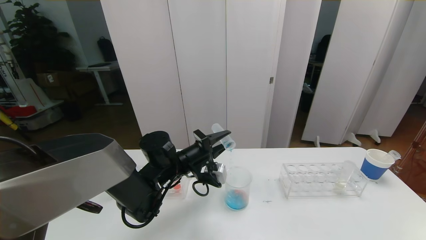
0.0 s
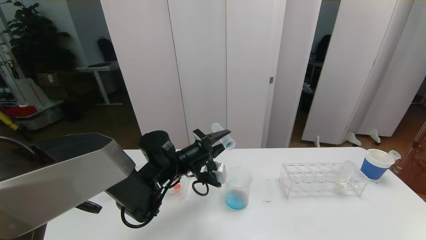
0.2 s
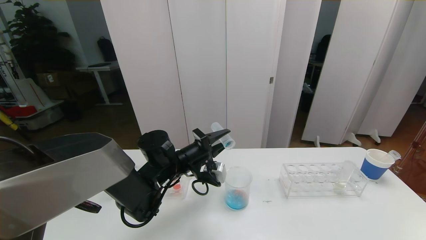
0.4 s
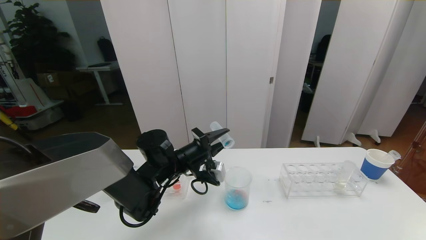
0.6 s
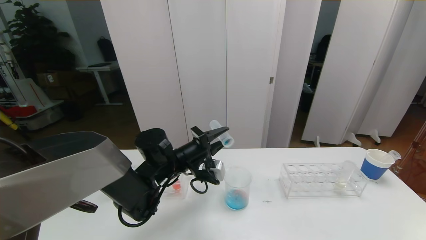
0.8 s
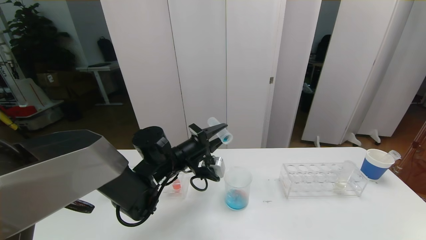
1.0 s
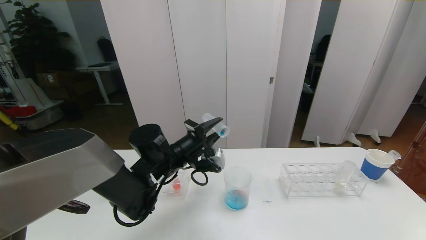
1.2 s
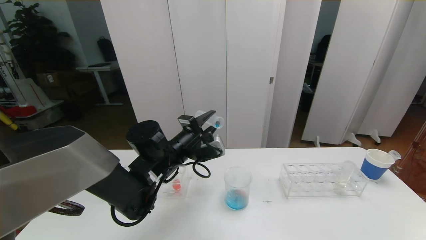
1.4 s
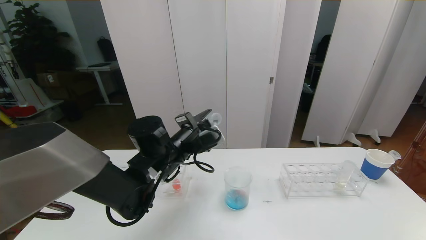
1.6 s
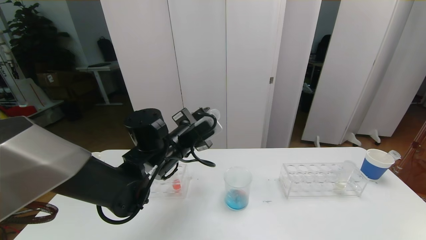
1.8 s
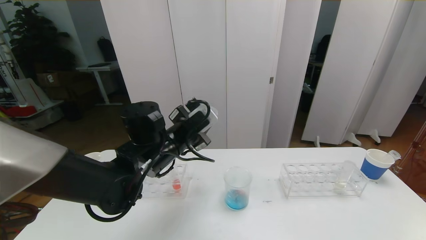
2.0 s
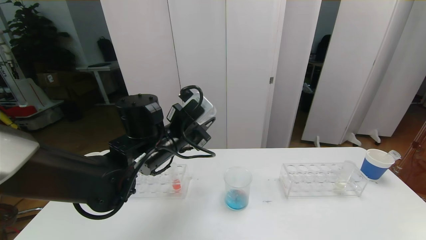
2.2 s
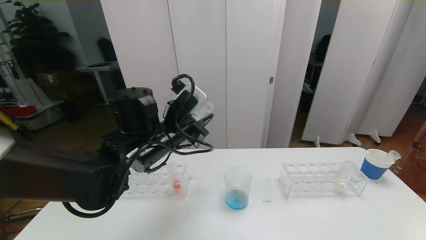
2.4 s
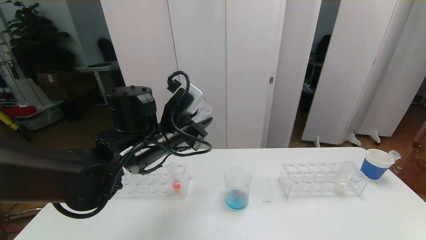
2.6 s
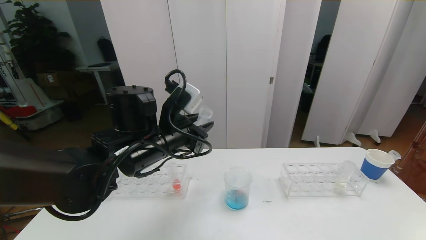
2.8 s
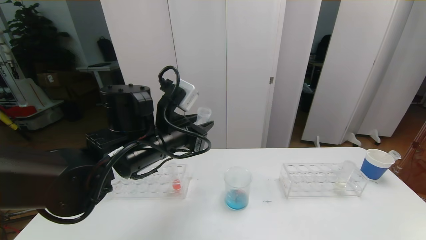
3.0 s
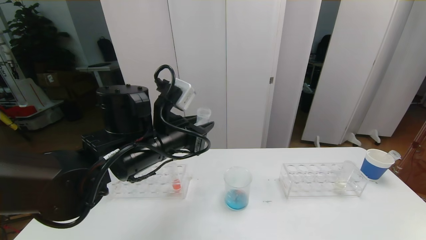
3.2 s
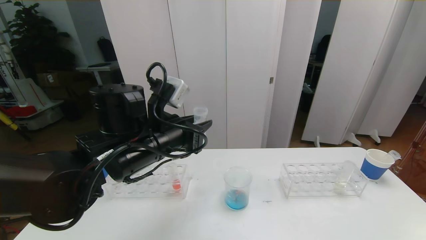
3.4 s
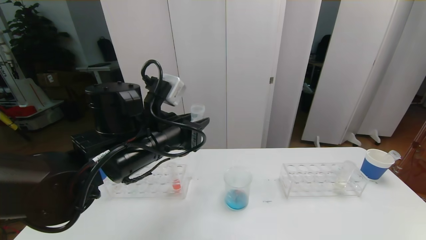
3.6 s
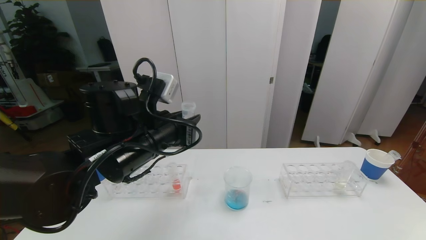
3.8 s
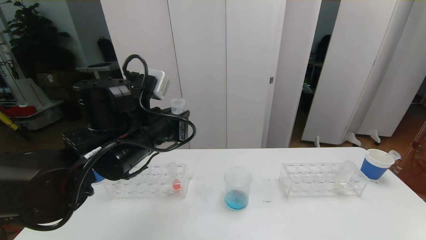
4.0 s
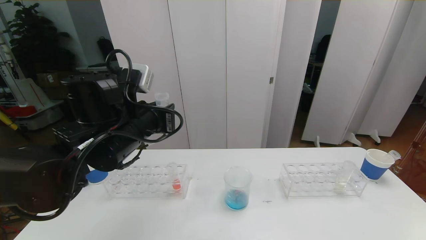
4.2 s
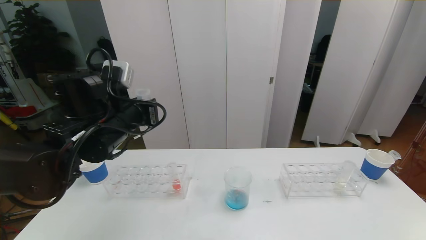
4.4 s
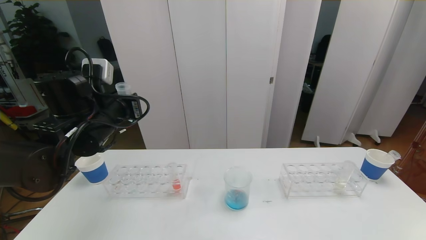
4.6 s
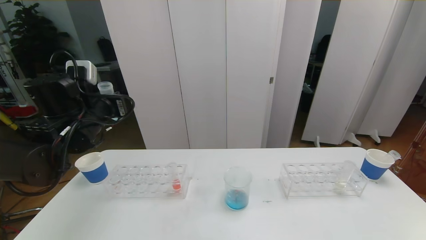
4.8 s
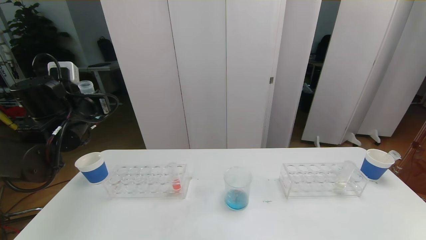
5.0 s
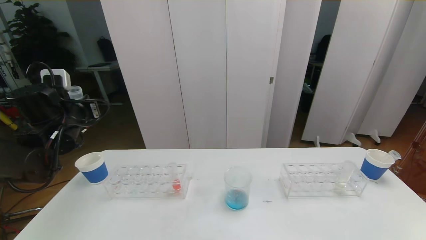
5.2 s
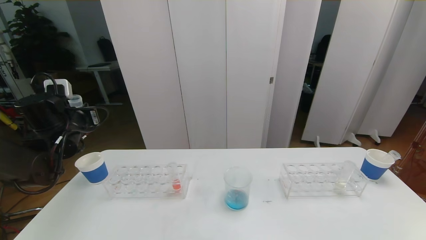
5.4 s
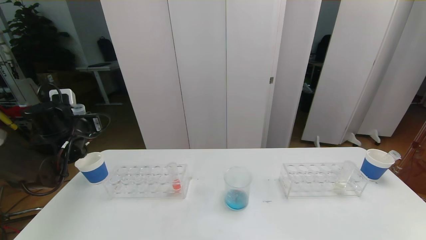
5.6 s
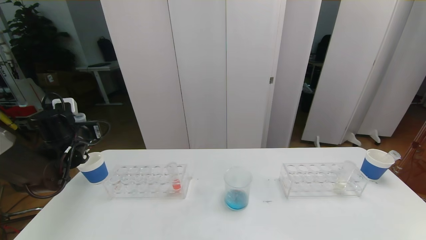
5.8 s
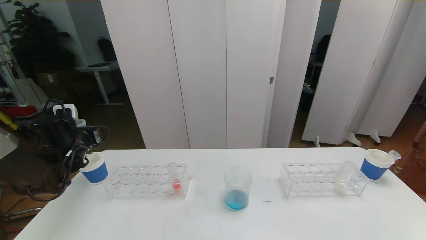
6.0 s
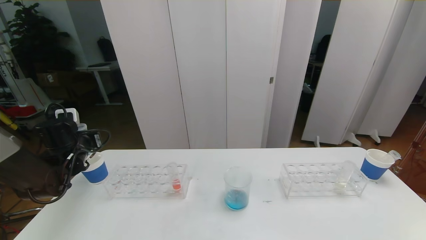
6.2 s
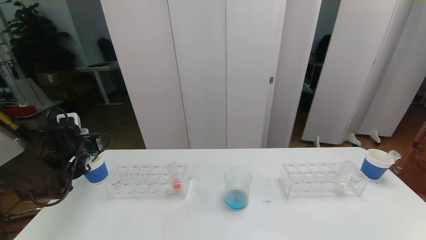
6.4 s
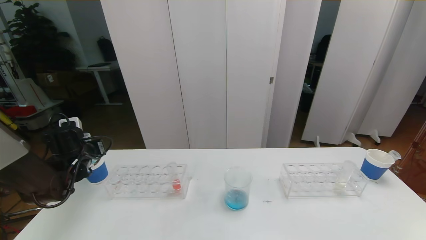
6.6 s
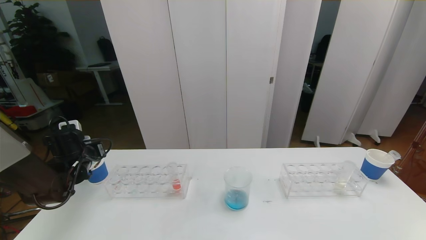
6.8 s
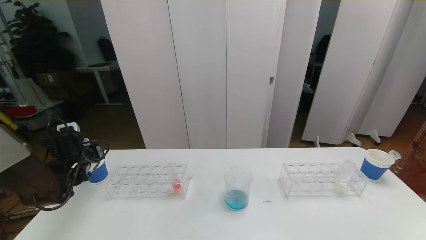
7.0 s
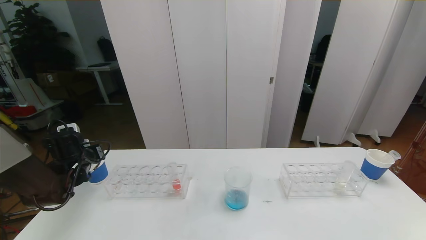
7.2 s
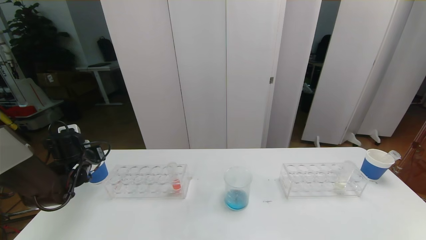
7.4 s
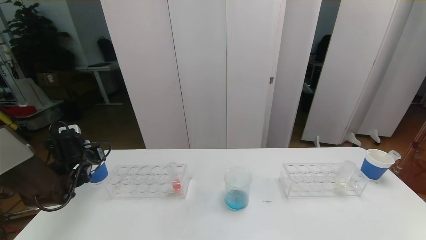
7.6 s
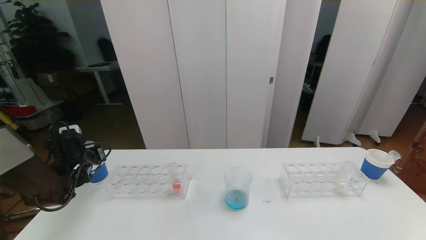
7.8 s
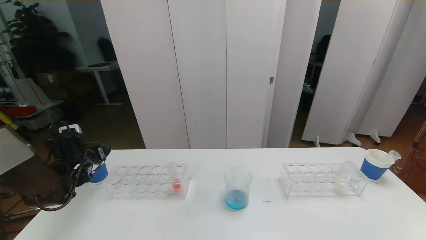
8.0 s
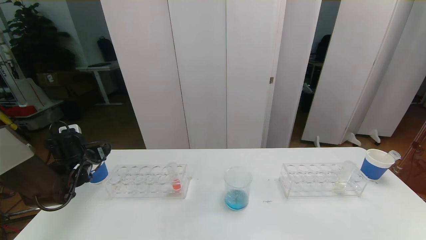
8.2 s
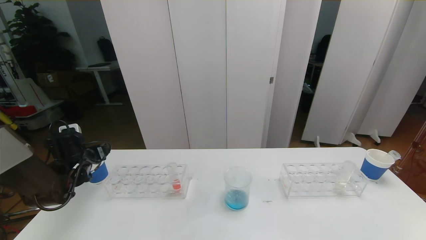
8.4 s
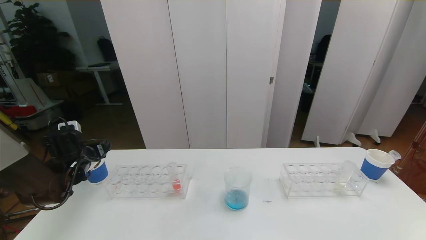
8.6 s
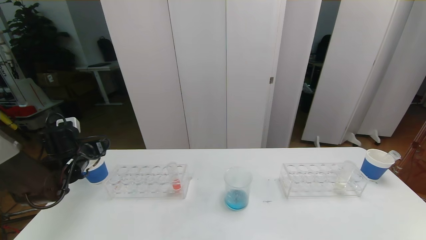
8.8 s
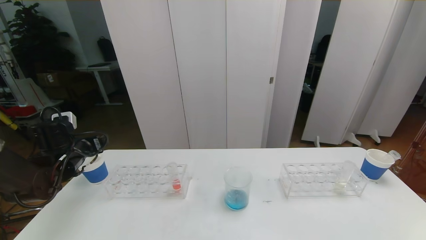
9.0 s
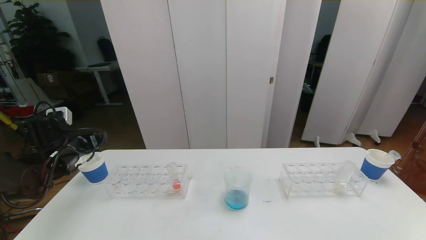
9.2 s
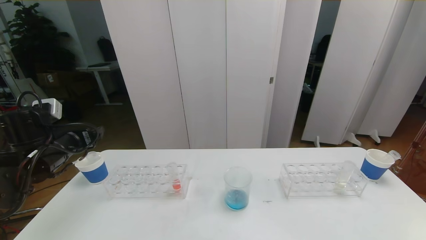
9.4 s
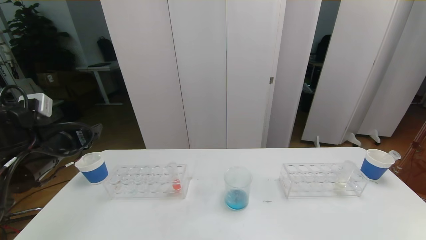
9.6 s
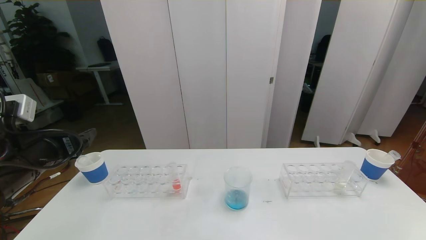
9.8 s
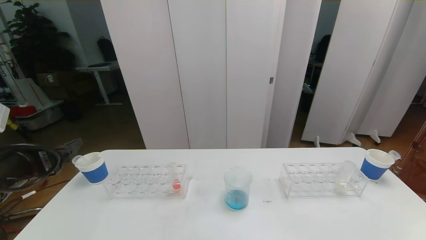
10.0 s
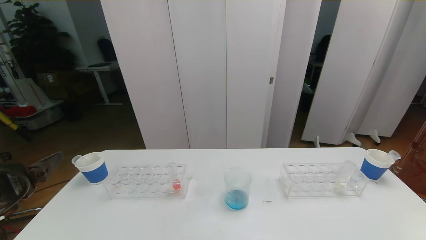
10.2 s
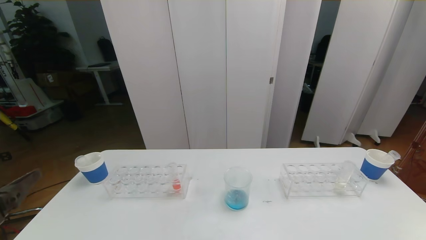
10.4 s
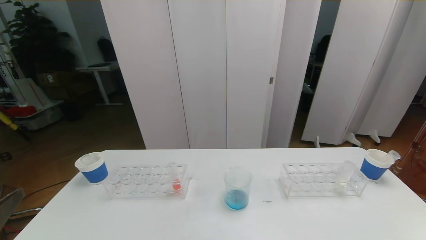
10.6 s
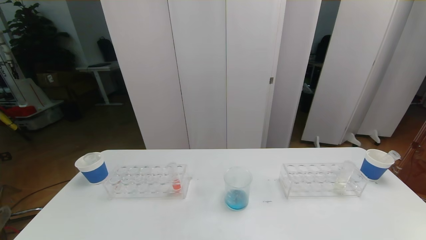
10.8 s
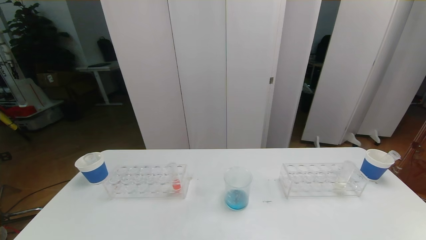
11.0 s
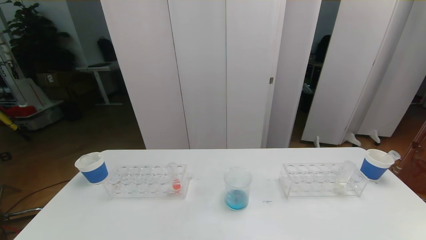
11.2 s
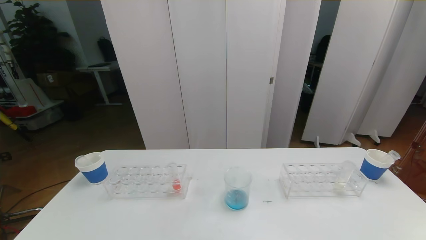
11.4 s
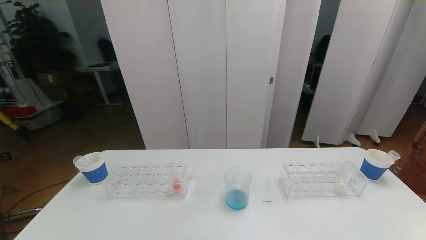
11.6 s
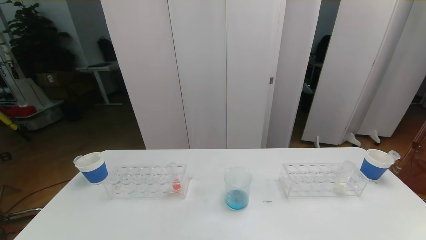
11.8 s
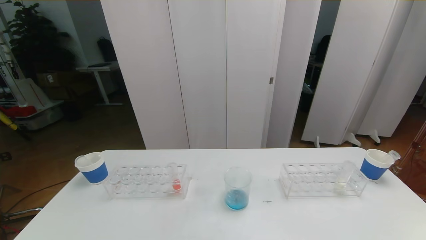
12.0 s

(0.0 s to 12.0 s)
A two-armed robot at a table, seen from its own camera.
Task of the whole recording: pick up the test tube with red pigment the test tube with blue pigment and the test tube with white pigment by grippers and pour them into the beaker.
1.6 s - 3.0 s: The left gripper shifts roughly 10 cm upward and backward.
3.0 s - 4.4 s: The left gripper goes roughly 5 cm to the left.
4.4 s - 6.0 s: The left gripper moves to the left and downward, about 20 cm.
6.0 s - 7.6 s: The left gripper shifts about 5 cm downward.
7.6 s - 9.0 s: The left gripper opens.
9.0 s - 10.4 s: The left gripper heads backward and upward, covering about 30 cm.

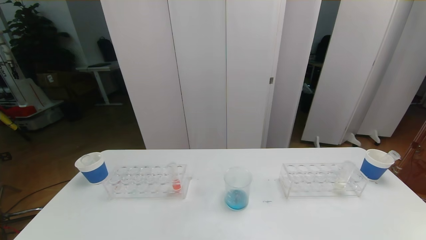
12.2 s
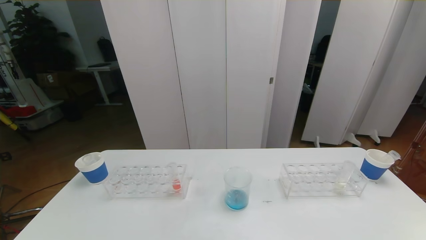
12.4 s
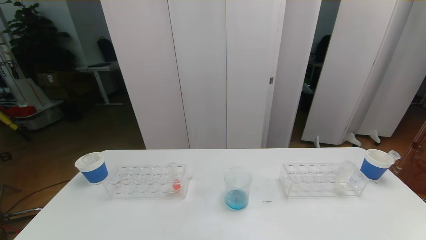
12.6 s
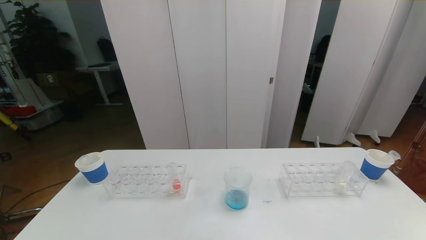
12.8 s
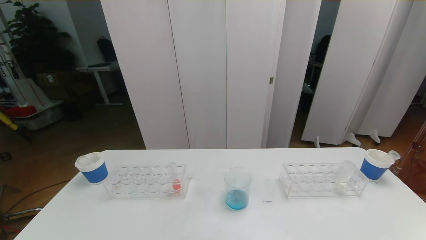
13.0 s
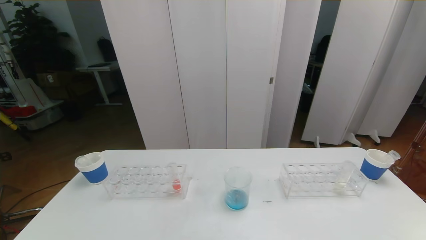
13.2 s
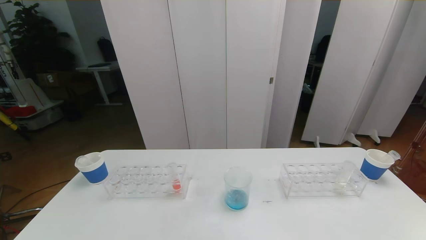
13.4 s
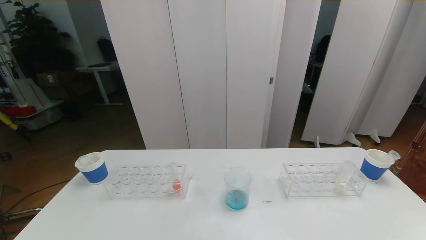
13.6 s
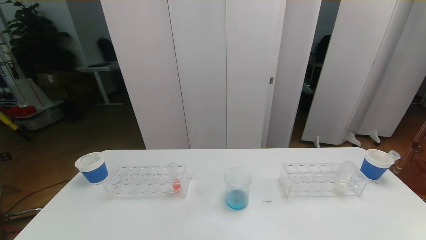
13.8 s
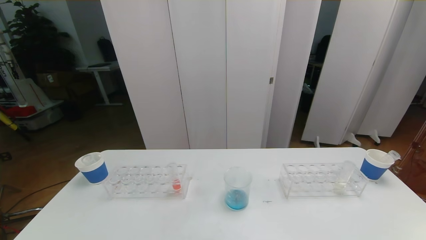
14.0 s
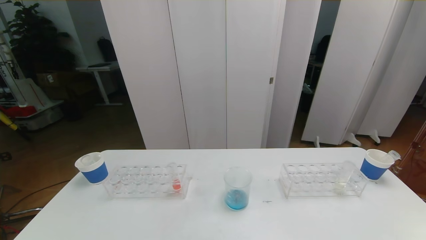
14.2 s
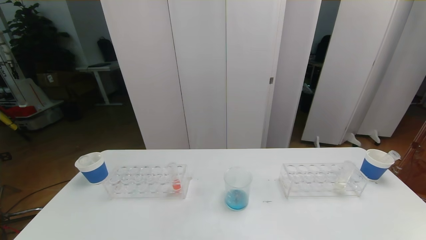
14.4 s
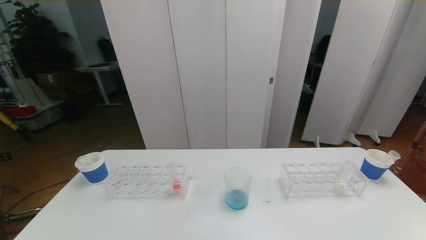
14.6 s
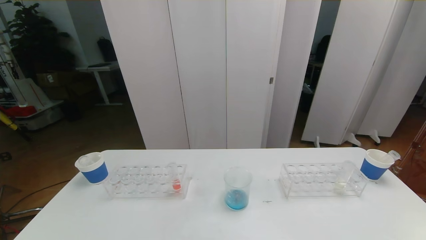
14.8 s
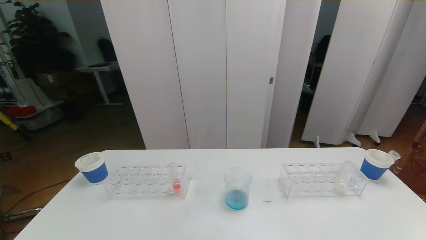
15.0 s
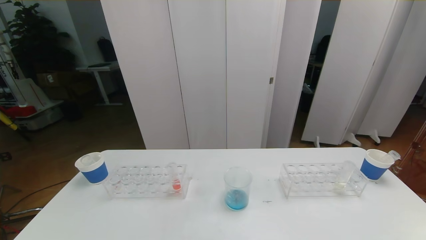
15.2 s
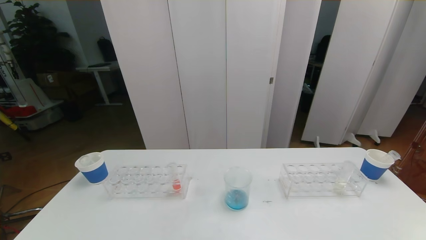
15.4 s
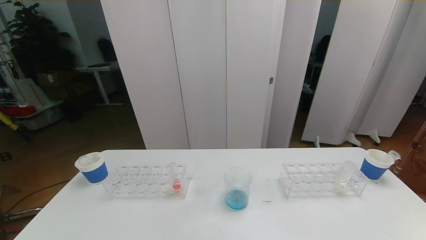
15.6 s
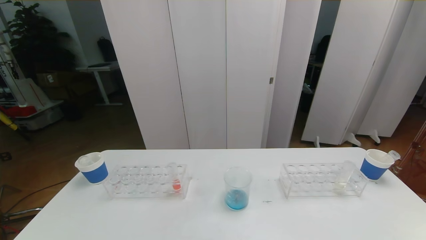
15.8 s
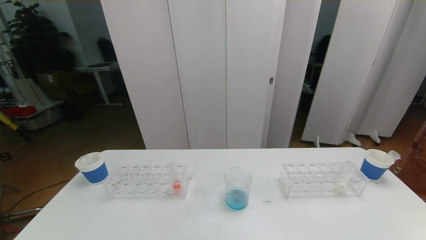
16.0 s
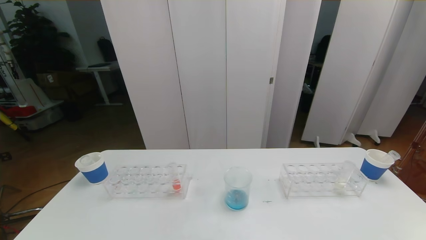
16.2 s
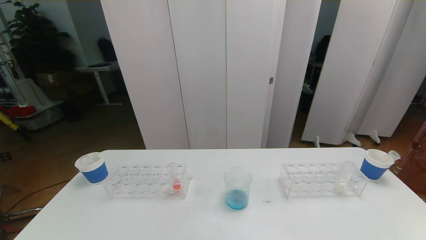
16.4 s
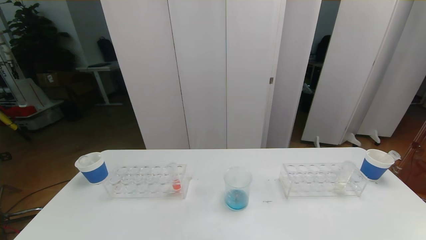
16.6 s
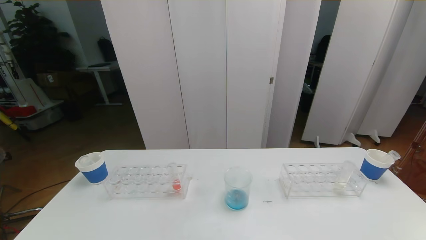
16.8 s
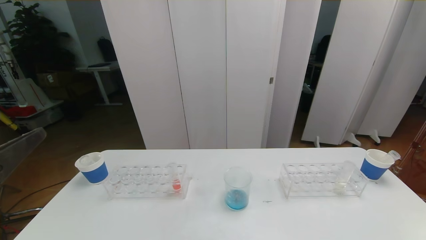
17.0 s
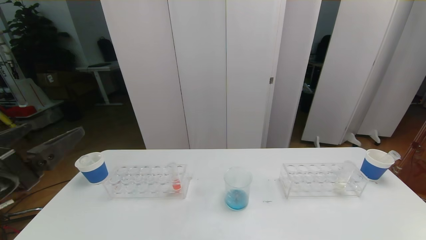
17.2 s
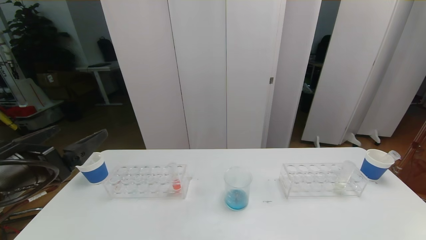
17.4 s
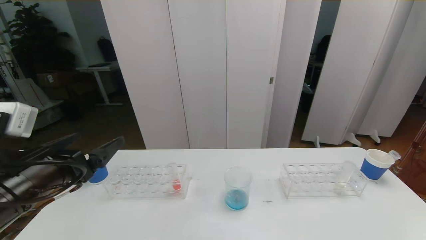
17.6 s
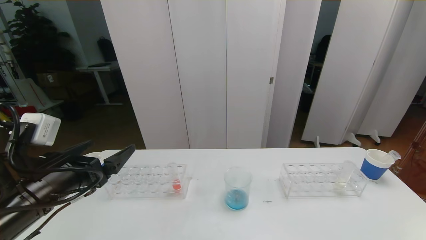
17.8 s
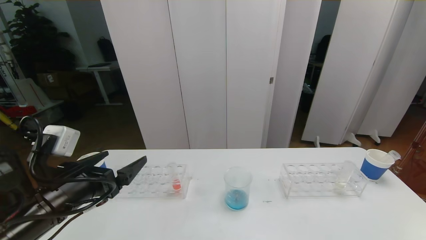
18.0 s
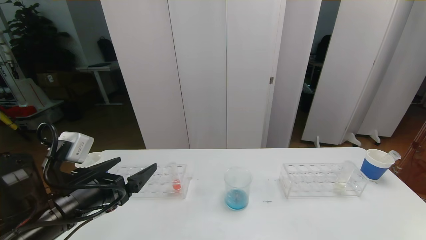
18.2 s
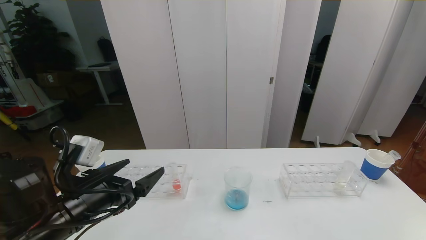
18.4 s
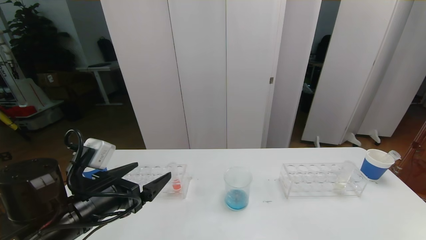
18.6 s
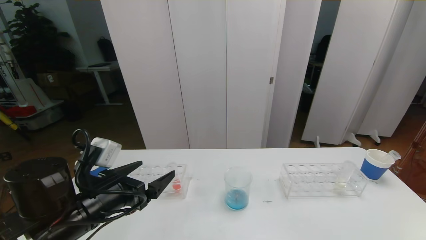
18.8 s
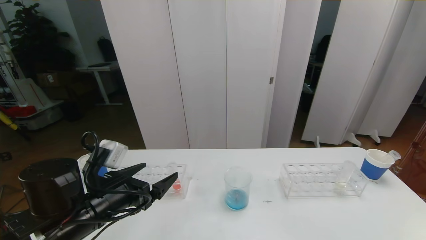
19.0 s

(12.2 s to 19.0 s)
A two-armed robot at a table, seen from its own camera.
Task of the whole recording: pick up the test tube with red pigment the test tube with blue pigment and the test tube with white pigment by grippers and pour them into the beaker.
12.2 s - 15.0 s: The two grippers keep their place.
16.2 s - 17.6 s: The left gripper goes roughly 20 cm forward.
17.6 s - 19.0 s: The left gripper shifts about 10 cm downward and to the right.
